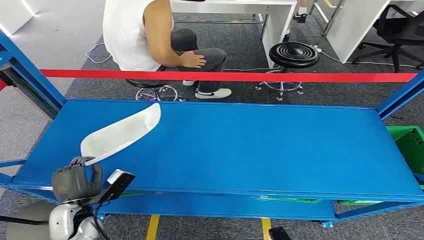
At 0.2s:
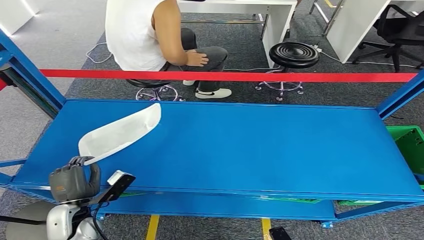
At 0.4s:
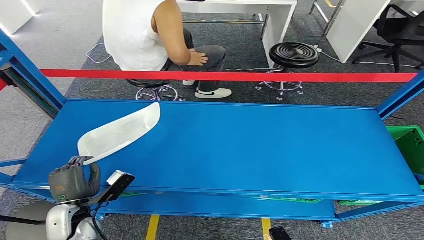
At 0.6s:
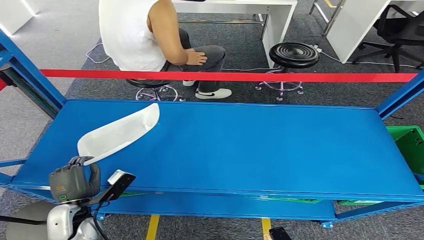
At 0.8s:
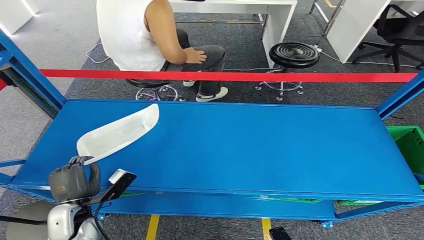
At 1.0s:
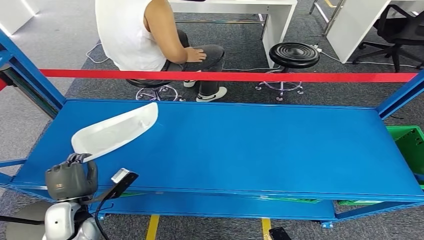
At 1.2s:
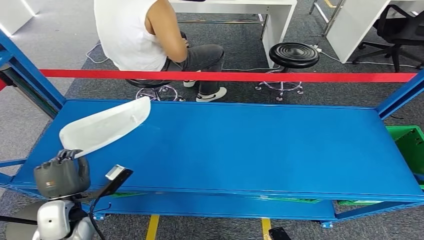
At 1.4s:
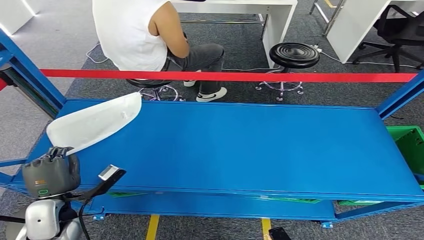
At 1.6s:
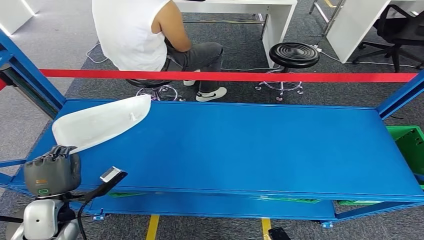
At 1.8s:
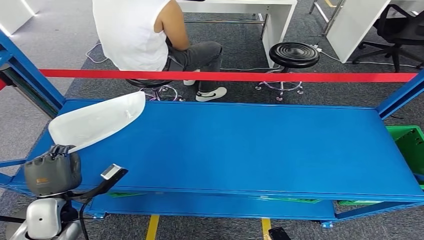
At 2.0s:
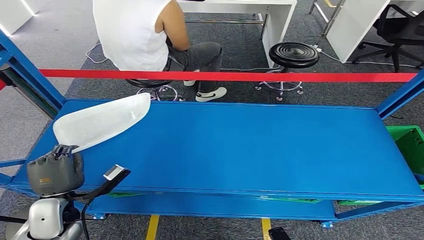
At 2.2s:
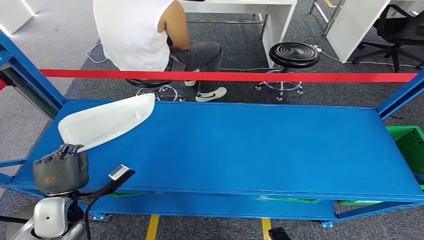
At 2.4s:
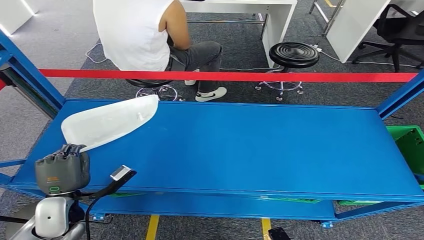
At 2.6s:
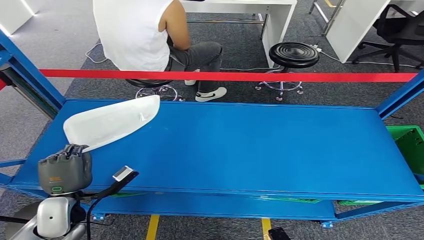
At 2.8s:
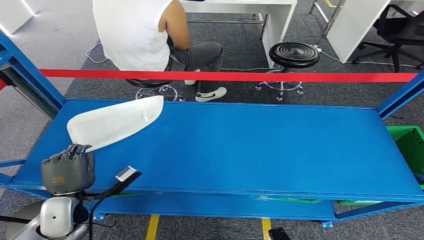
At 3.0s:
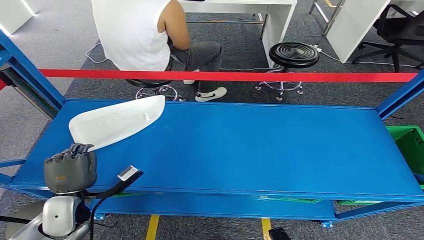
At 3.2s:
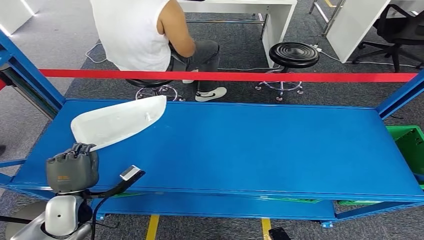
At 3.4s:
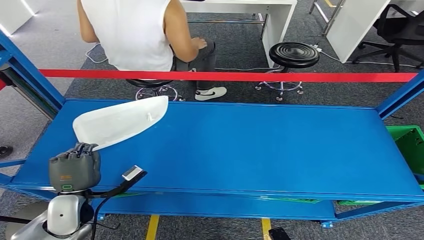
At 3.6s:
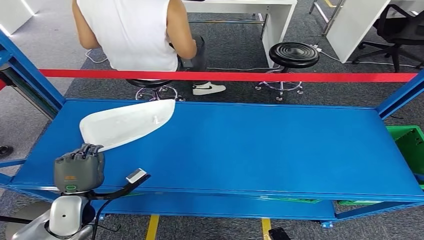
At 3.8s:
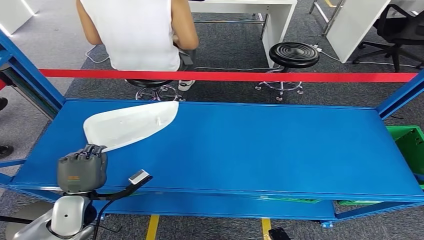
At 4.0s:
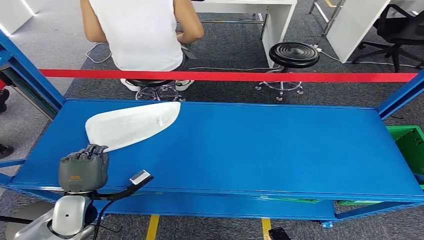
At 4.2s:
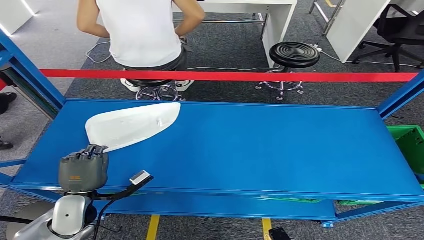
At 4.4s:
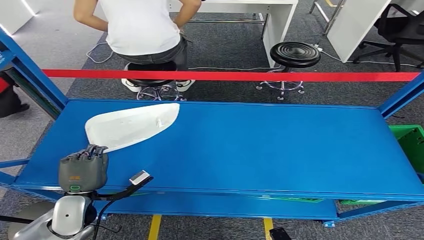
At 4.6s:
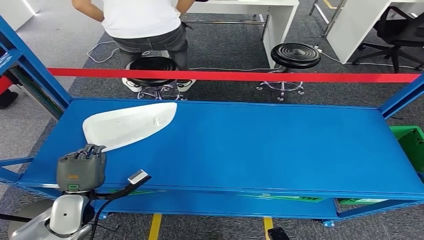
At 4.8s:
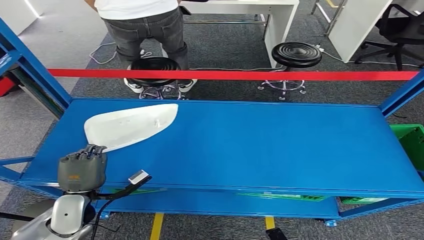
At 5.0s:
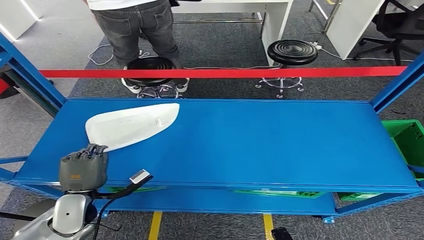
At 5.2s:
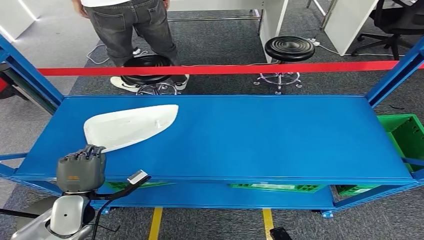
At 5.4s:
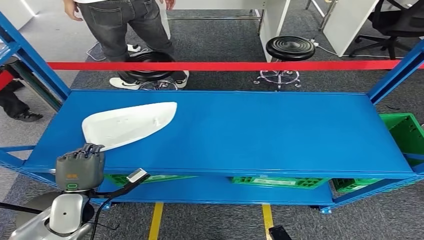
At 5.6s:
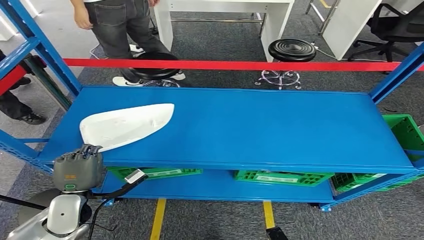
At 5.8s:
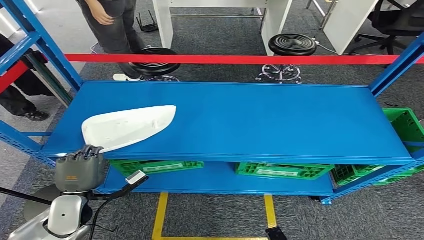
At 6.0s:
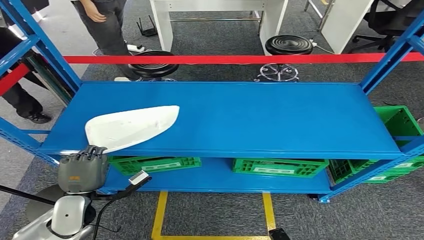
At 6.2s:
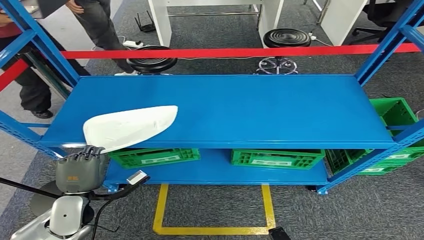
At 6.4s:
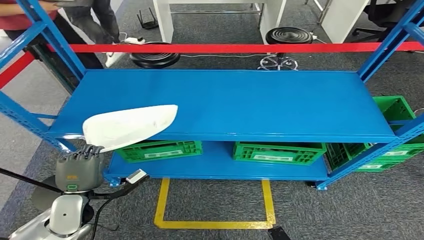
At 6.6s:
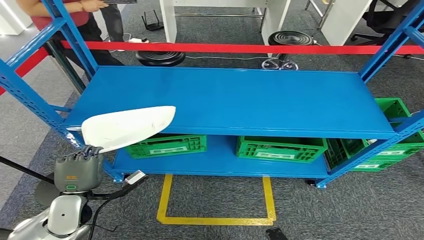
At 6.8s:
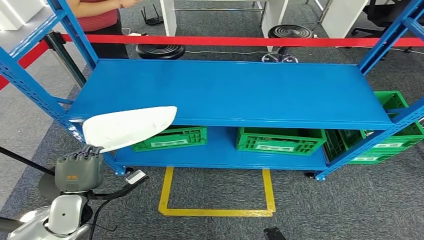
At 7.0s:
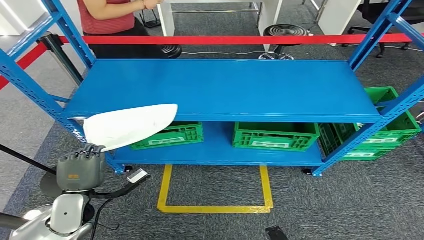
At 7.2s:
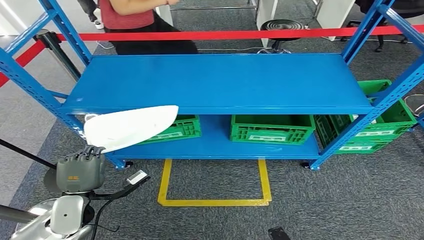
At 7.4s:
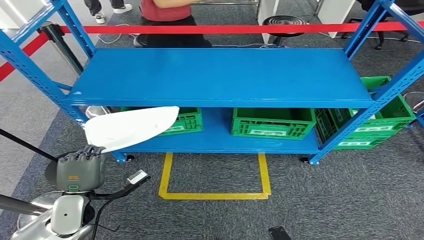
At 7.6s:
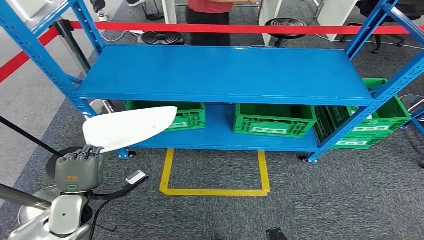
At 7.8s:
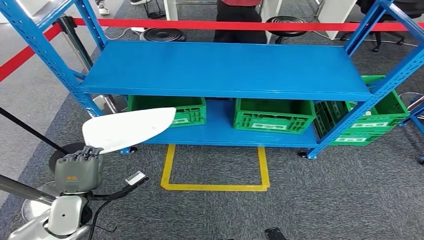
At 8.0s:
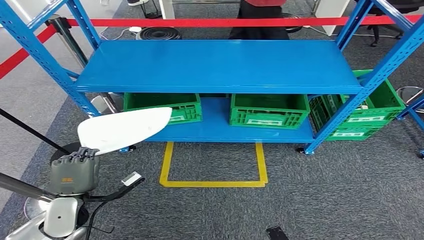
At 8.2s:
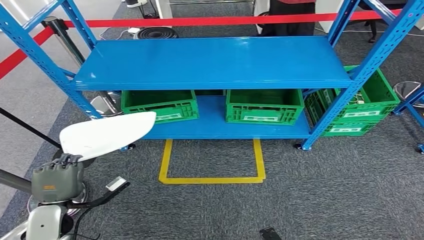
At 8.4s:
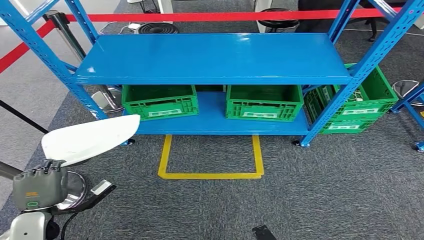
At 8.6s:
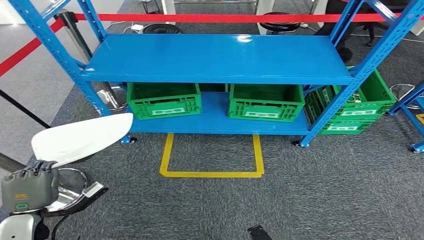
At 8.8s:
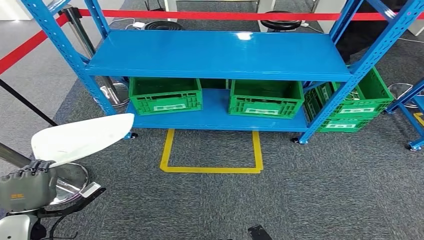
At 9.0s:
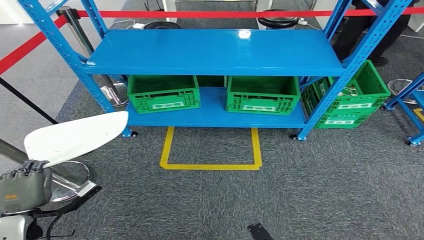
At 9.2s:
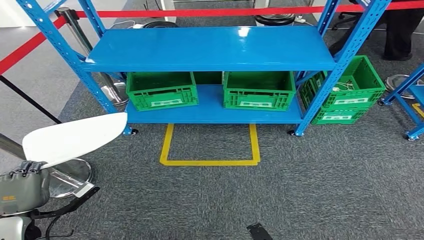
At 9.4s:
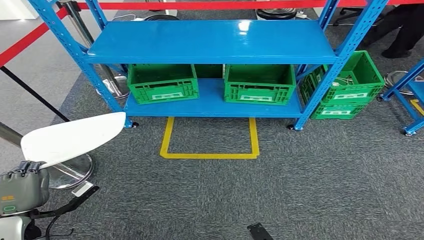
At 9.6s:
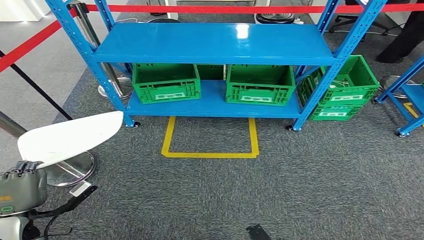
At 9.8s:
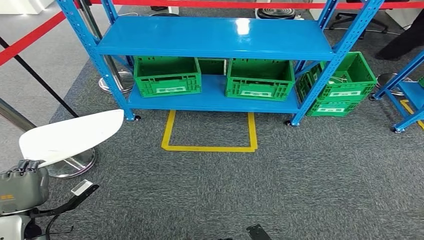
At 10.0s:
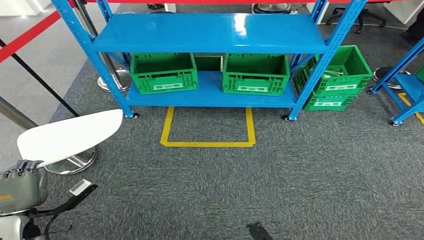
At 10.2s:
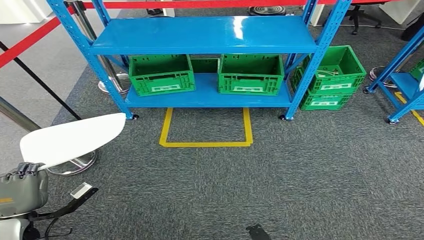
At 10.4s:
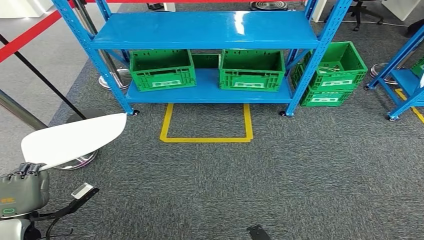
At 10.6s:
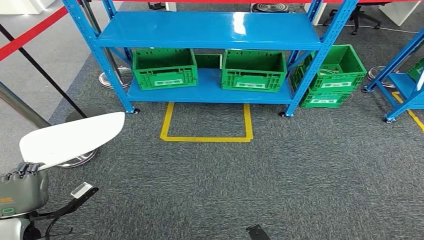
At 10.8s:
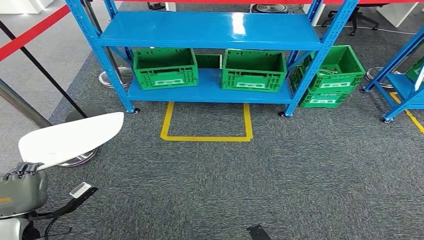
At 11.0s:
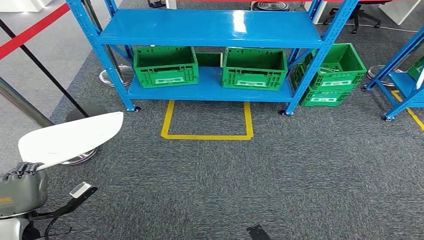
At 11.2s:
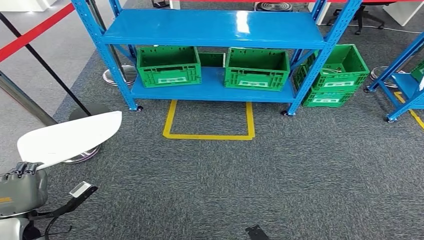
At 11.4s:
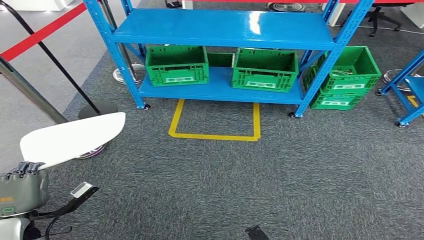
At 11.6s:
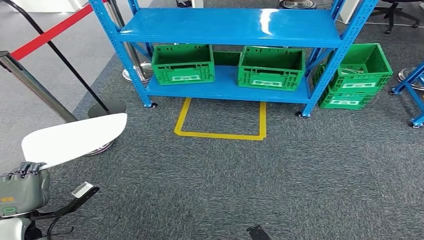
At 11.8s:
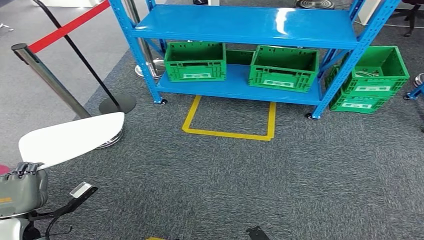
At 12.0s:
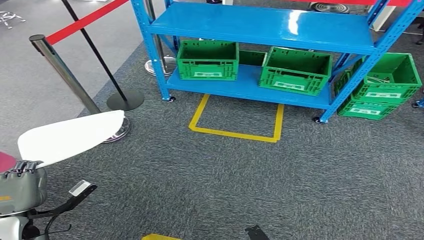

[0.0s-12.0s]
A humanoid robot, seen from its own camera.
Step, 0.0s to 4.0s: Pick up the small component from the shelf.
1.6s to 4.4s: The hands move only a little.

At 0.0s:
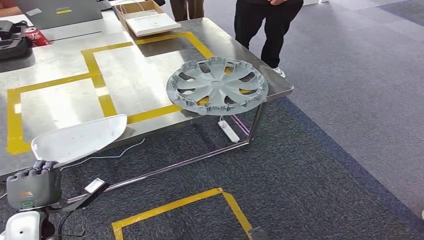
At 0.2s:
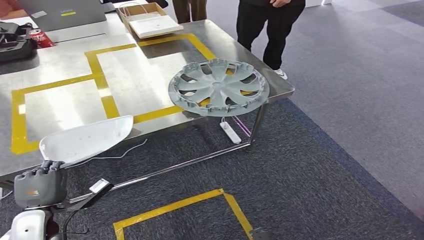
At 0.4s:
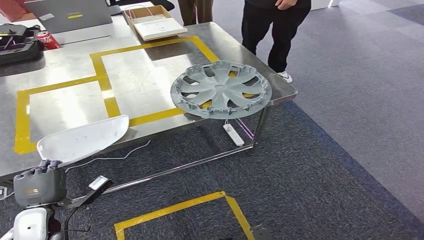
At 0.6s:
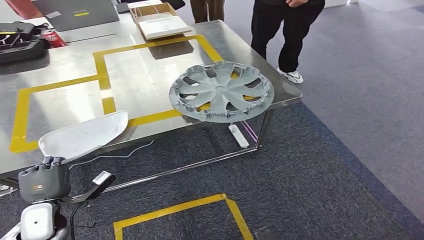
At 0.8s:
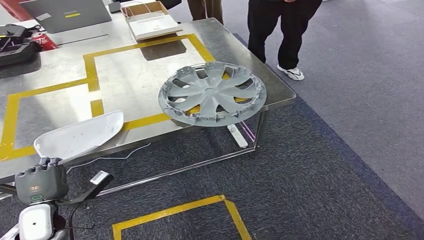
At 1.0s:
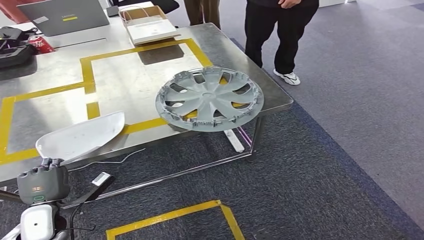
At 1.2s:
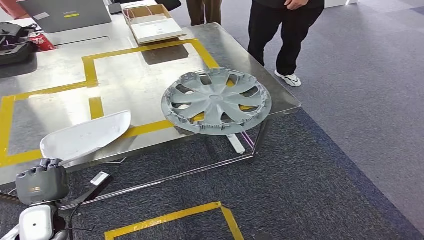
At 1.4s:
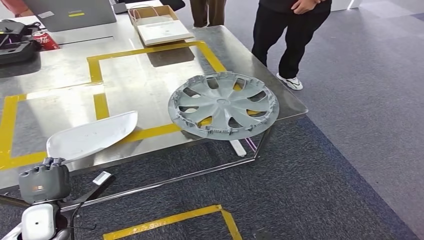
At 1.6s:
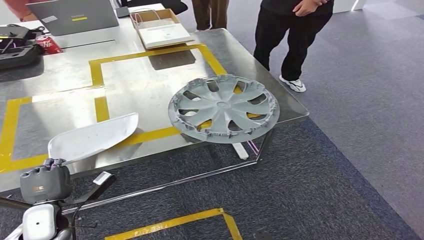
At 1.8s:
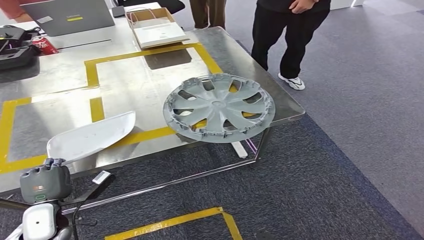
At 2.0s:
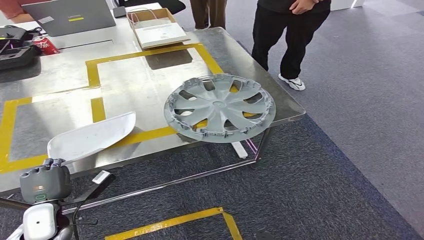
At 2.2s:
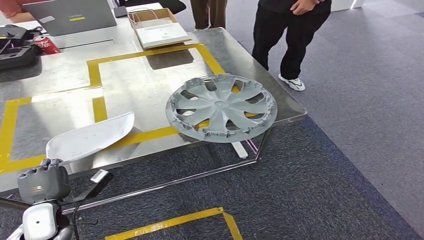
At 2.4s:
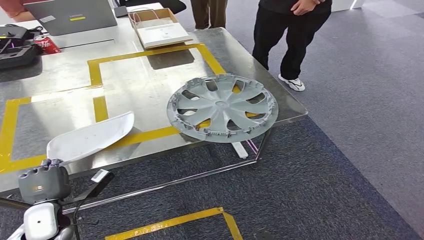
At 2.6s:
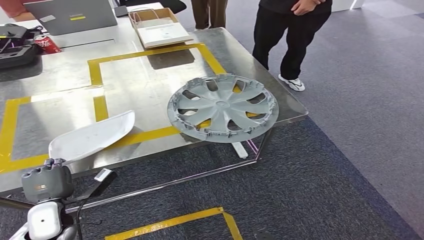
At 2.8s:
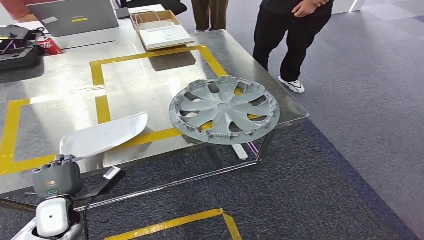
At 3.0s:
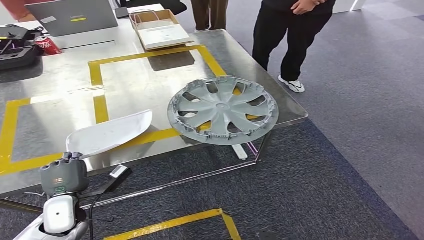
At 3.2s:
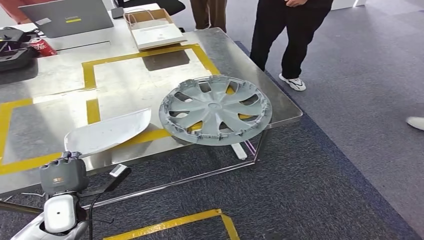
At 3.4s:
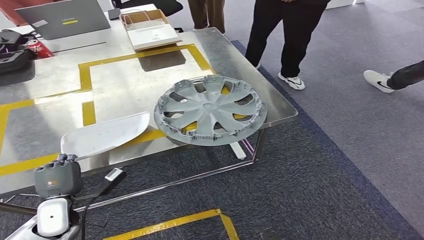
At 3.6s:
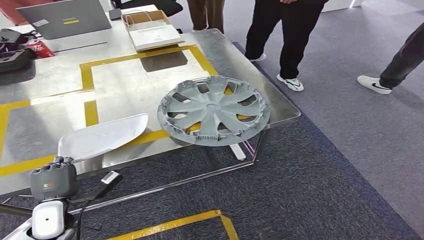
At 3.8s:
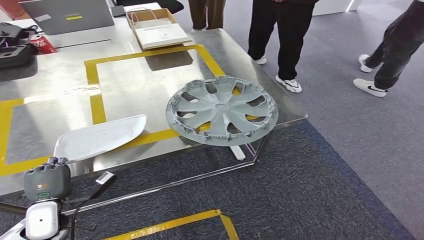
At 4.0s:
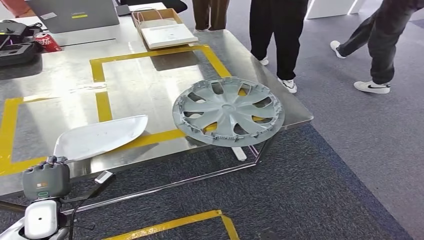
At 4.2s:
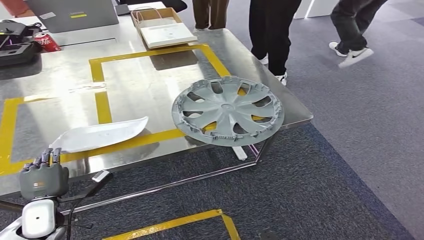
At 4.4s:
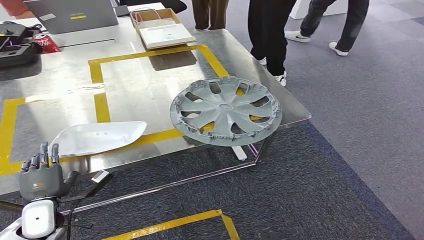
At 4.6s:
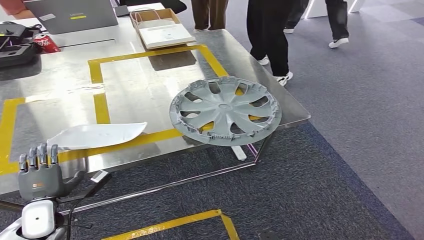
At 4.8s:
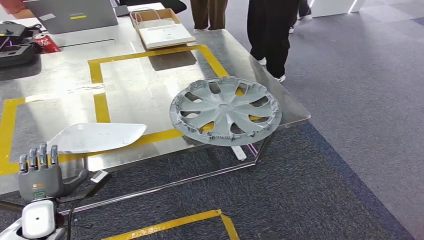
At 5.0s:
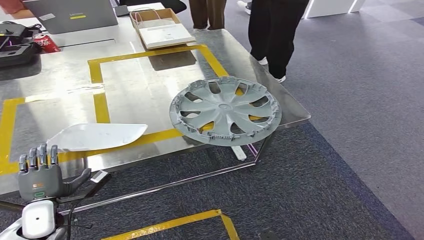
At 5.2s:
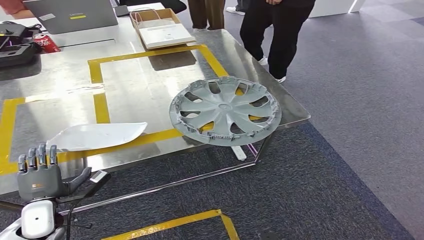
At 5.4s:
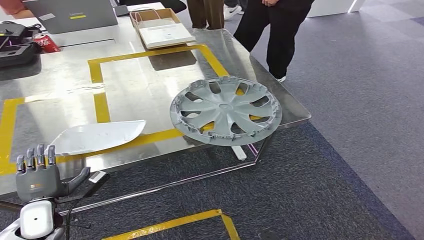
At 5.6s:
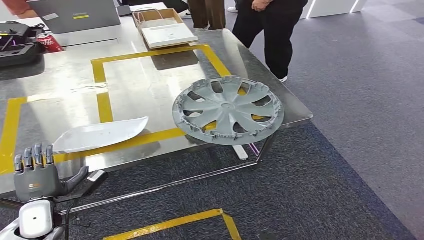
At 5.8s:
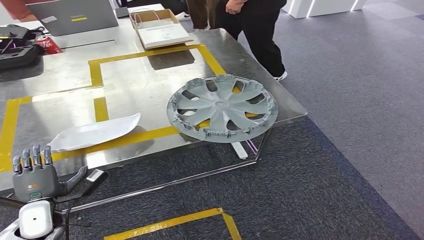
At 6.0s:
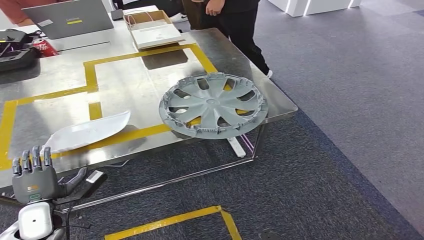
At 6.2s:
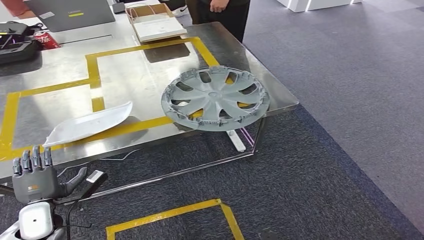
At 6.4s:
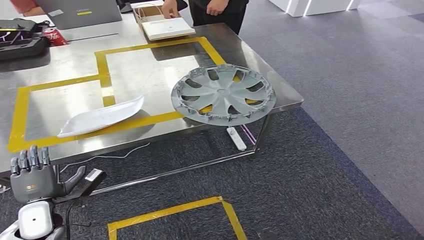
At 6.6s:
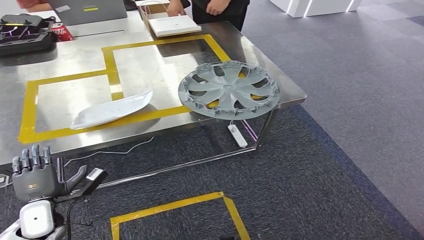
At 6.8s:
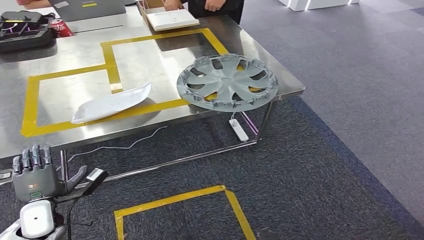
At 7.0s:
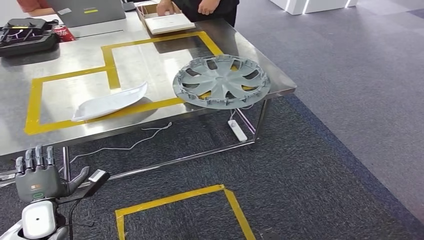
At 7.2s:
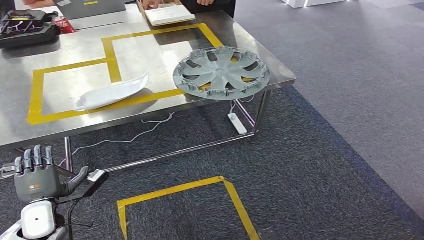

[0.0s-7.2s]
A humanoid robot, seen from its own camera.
2.8s to 4.4s: The hands make only small movements.
